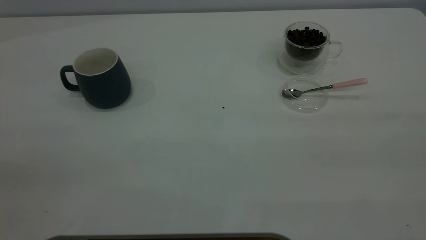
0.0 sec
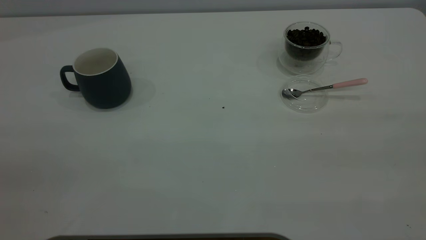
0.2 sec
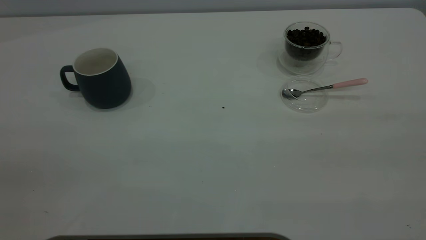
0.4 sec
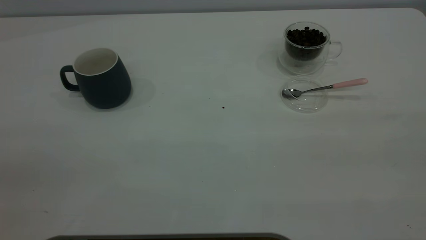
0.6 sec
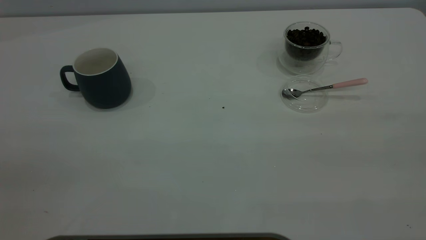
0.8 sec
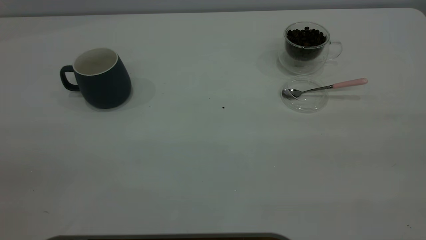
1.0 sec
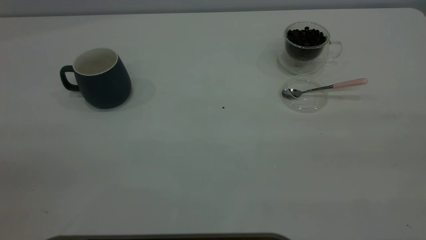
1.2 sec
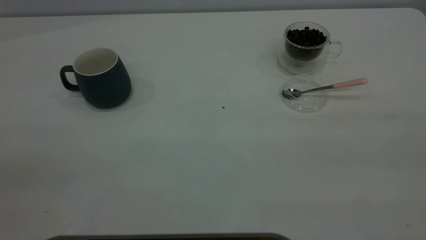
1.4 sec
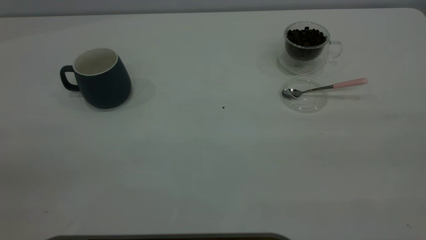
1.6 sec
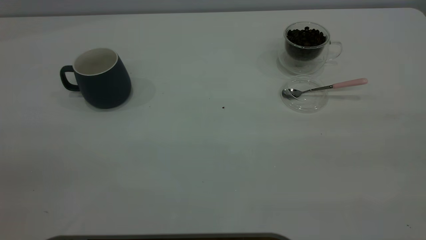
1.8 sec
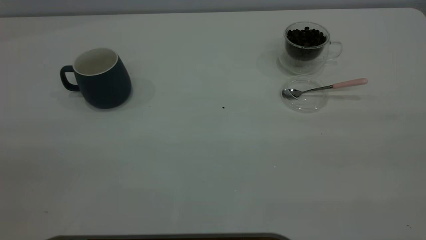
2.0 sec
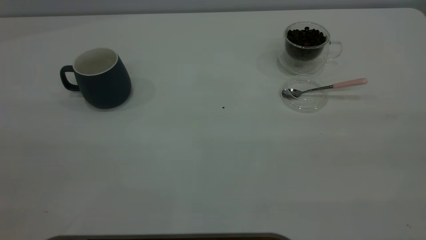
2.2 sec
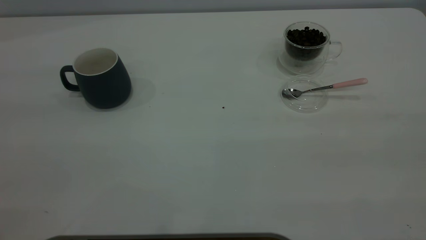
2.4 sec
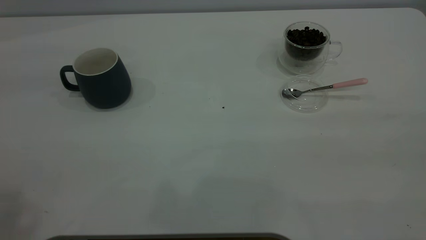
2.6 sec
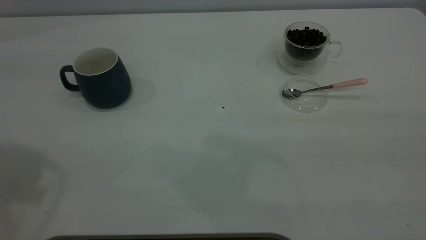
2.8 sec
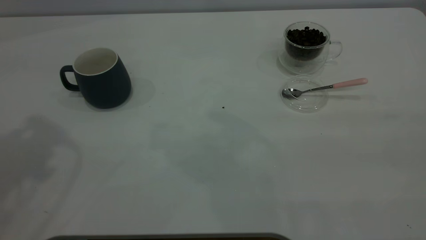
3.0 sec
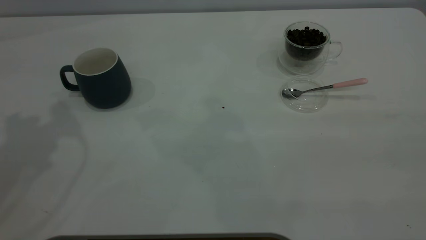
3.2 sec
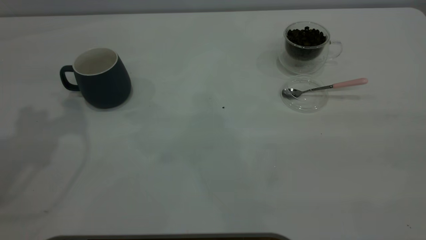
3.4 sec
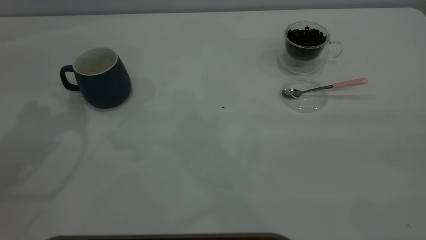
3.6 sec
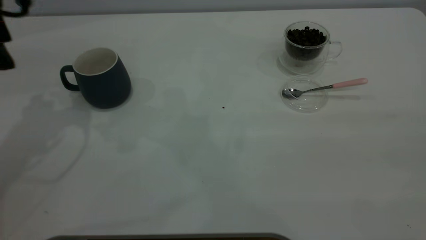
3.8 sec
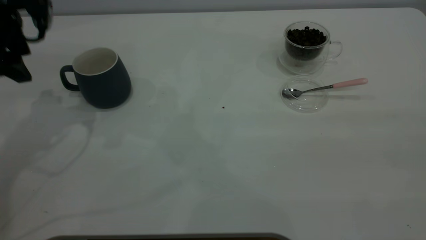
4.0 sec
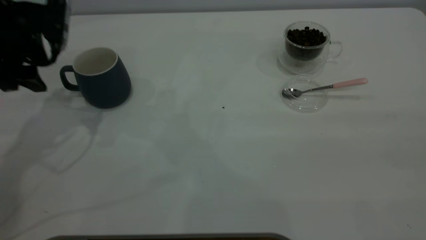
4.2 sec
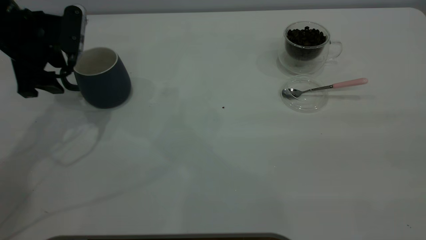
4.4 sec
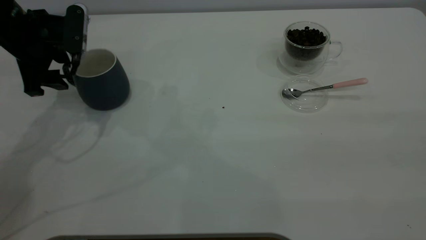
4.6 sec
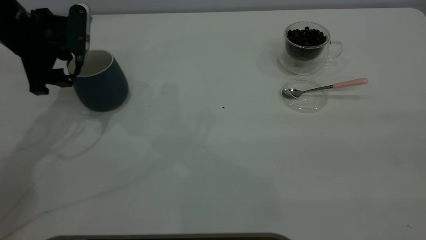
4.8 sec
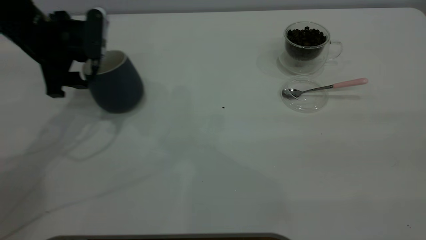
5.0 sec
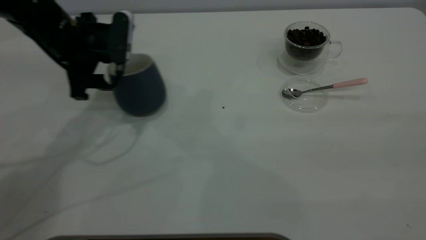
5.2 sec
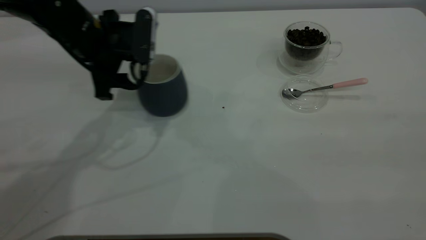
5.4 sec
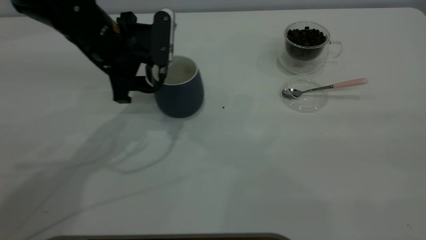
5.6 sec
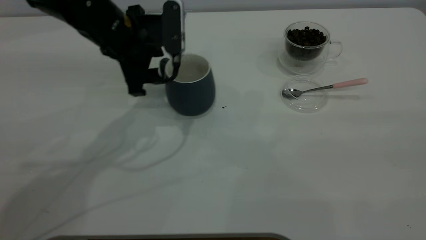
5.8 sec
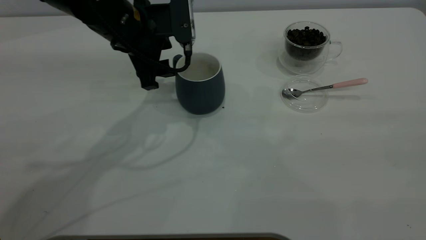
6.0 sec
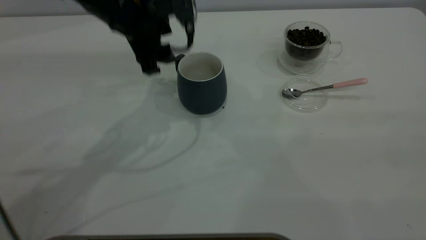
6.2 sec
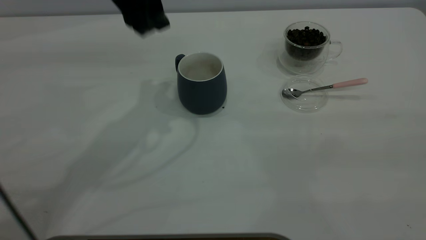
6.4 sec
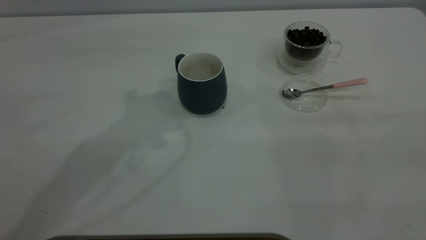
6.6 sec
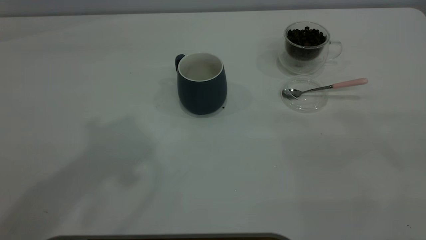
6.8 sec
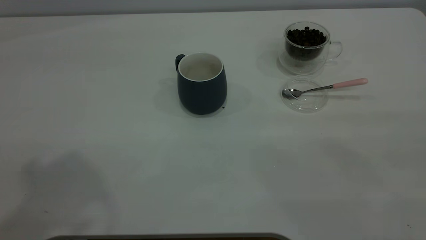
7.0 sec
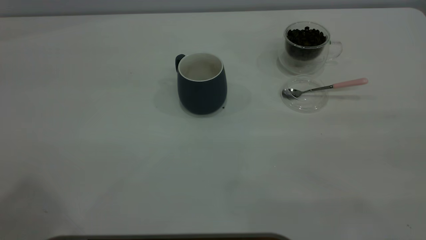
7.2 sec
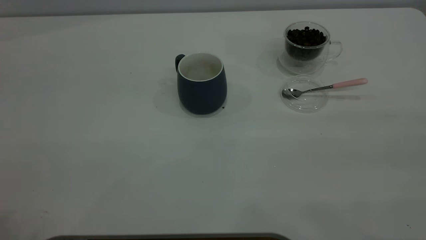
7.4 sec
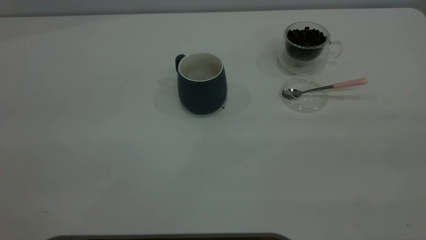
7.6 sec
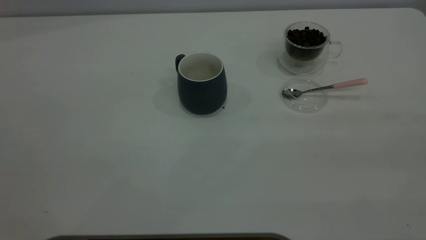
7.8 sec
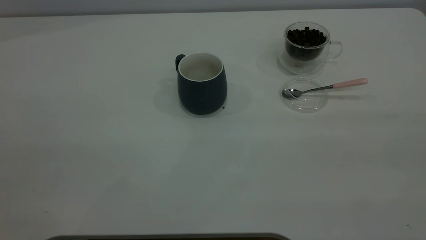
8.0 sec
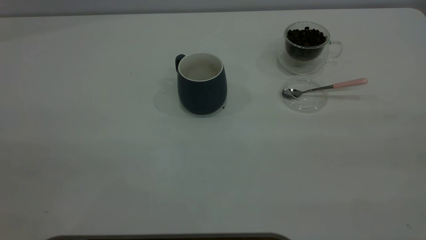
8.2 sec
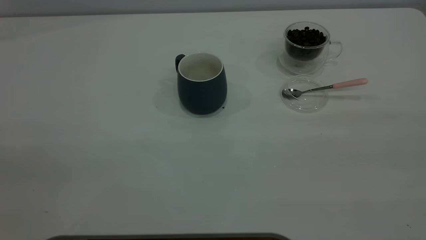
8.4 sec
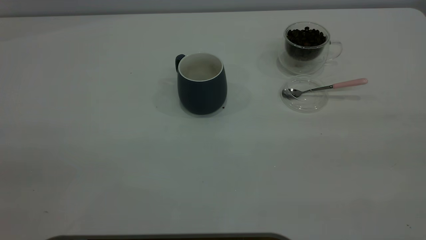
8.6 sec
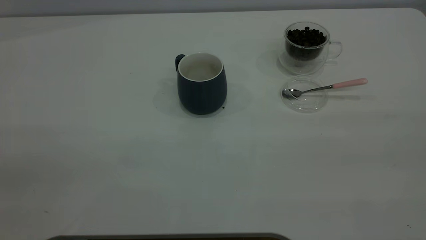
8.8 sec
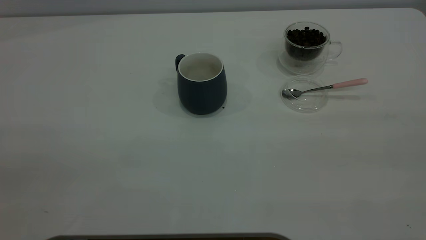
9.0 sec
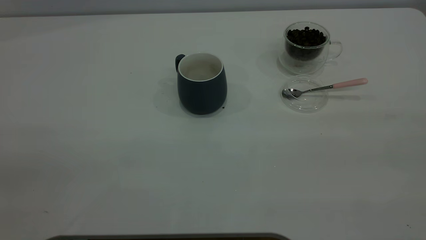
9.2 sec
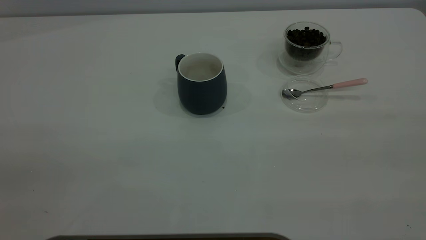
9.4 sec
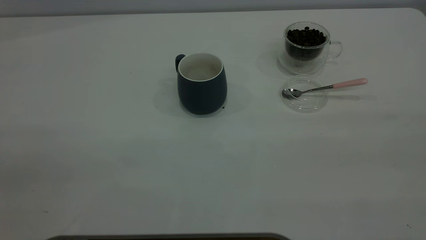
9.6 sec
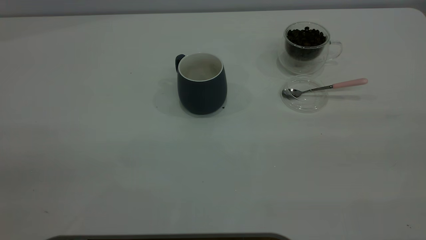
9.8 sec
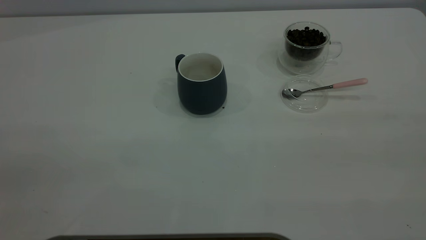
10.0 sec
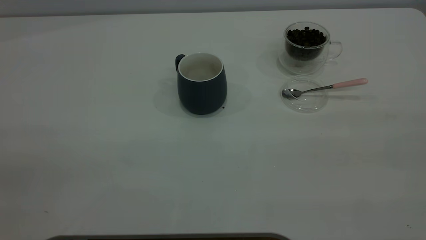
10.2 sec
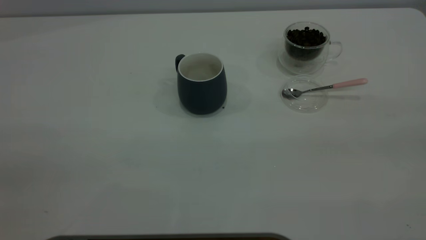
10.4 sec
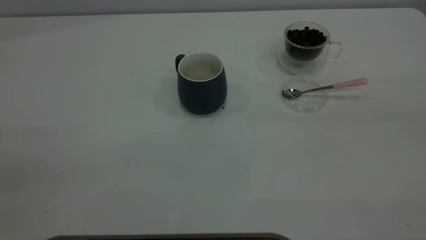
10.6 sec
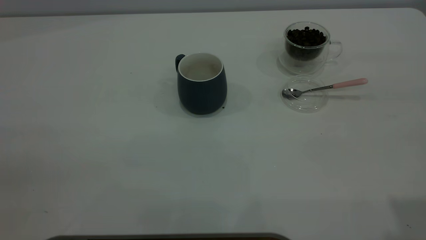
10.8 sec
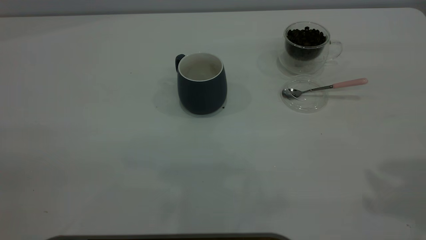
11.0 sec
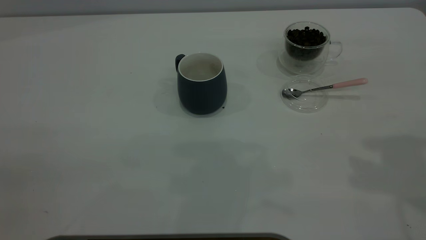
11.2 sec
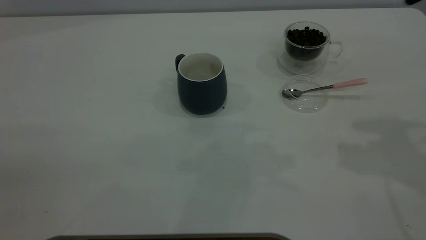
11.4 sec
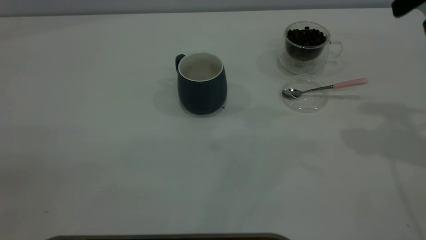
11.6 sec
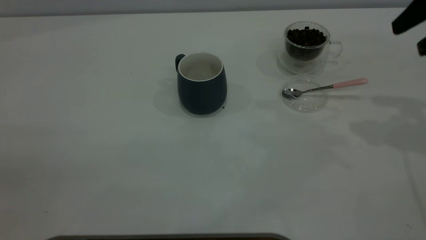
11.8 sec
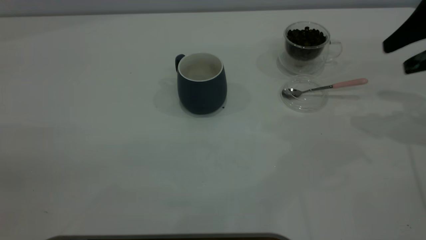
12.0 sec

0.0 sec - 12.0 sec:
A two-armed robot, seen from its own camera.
Task of the whole recording: the left gripper place the grey cup in the center of the table, the right gripper take the pink spoon from the cup lid and scoop out the coffee beans from the coffee cup and put them into the grey cup, the right gripper put the spoon back into the cup lid.
Step, 0.0 sec - 6.0 sec: Move the cup to the center of view.
0.0 sec - 1.6 sec: Neither gripper changes place.
3.0 sec - 4.4 sec: The left gripper travels downward and forward by some 25 cm.
4.4 sec - 6.0 sec: The left gripper shifts about 15 cm to the right.
6.0 sec - 7.6 sec: The left gripper goes some 50 cm upward, backward and to the left.
10.4 sec - 12.0 sec: The right gripper heads forward and downward, covering roughly 35 cm.

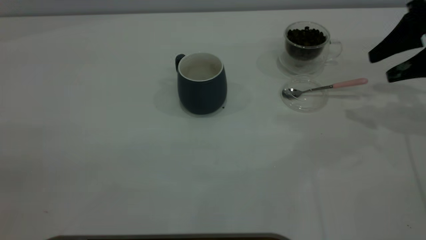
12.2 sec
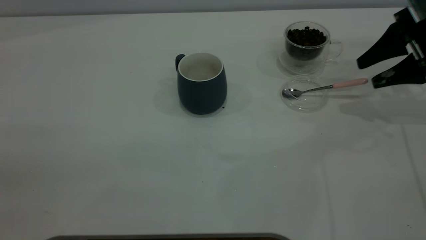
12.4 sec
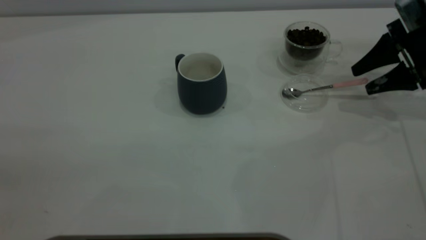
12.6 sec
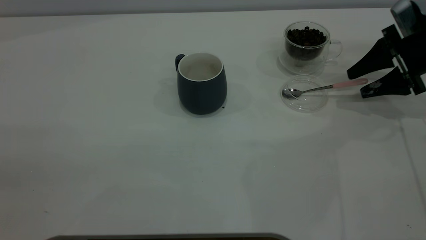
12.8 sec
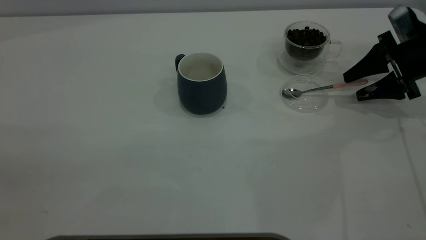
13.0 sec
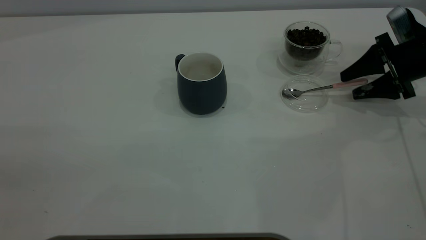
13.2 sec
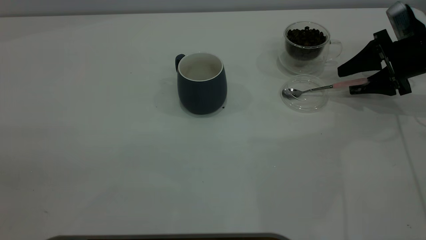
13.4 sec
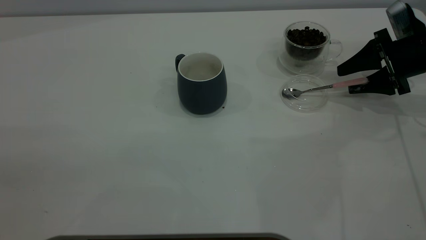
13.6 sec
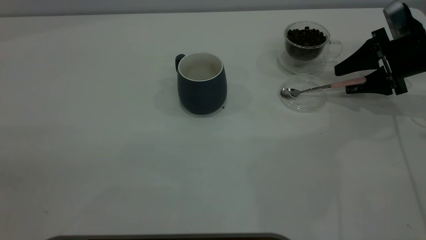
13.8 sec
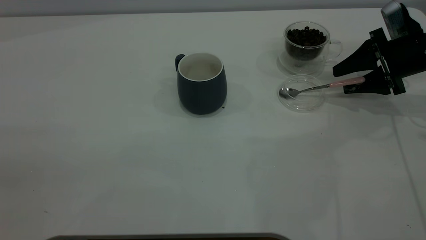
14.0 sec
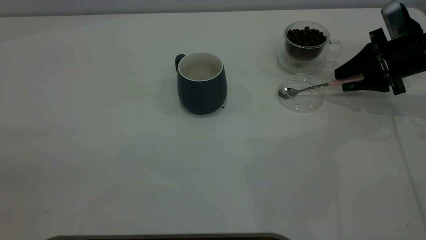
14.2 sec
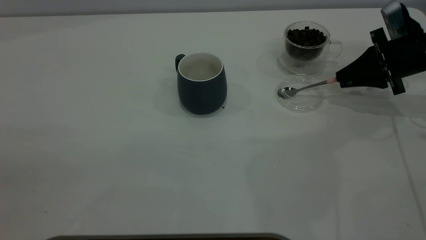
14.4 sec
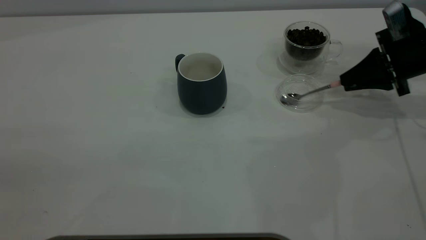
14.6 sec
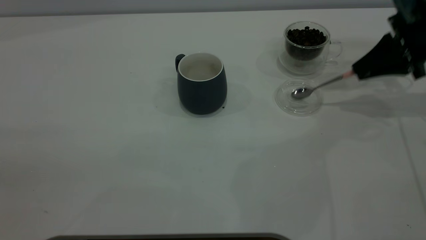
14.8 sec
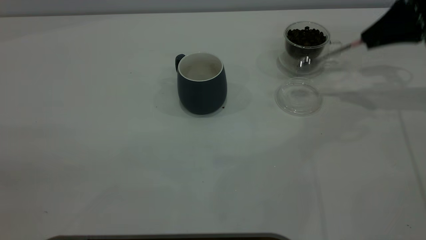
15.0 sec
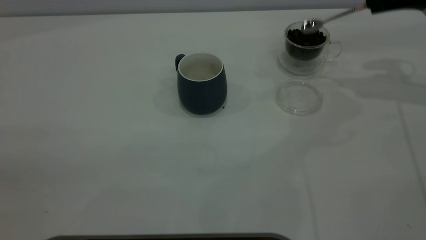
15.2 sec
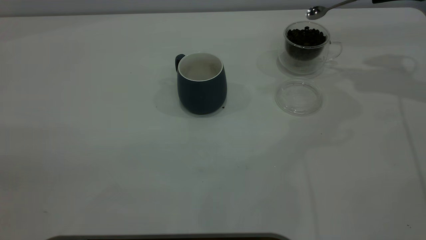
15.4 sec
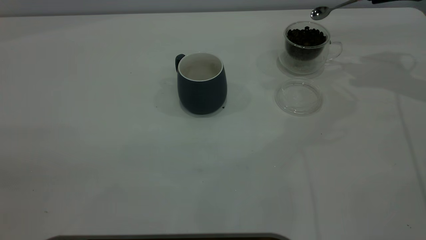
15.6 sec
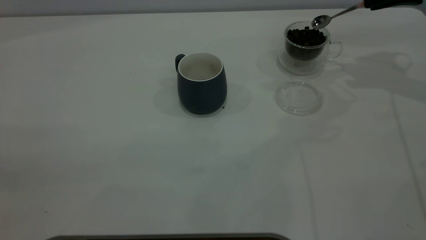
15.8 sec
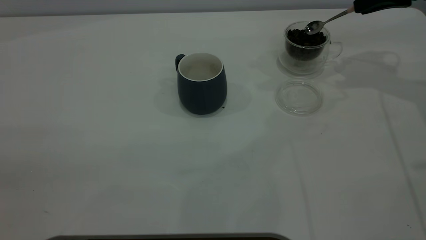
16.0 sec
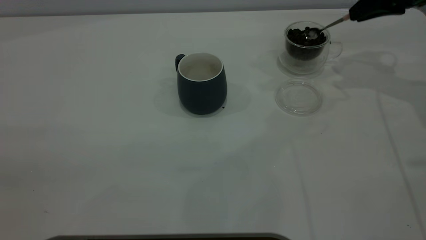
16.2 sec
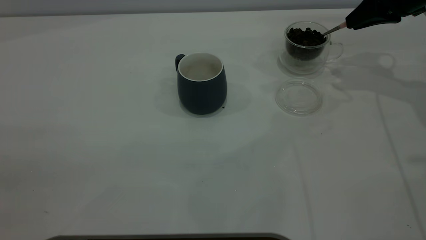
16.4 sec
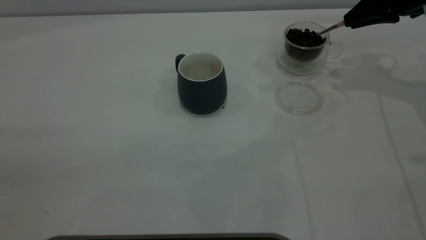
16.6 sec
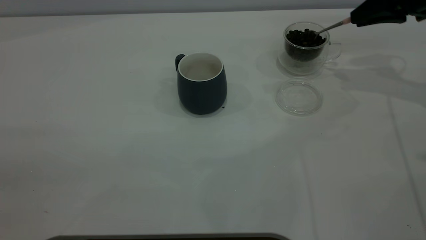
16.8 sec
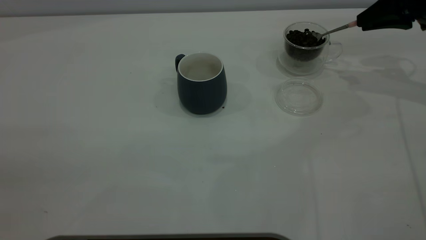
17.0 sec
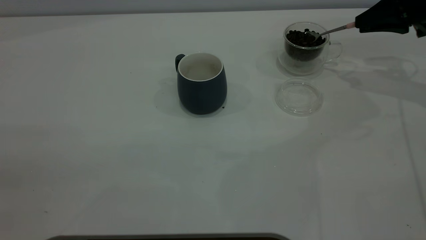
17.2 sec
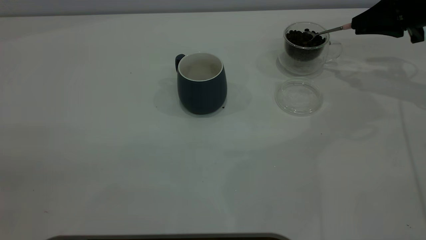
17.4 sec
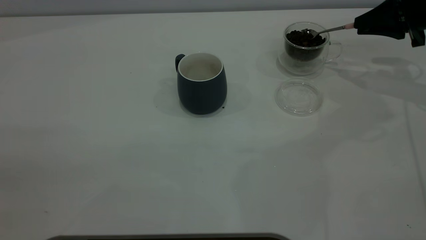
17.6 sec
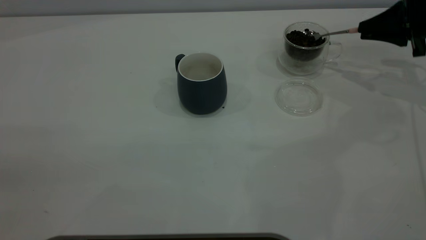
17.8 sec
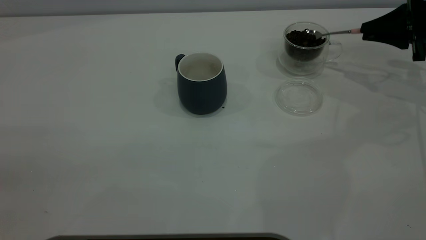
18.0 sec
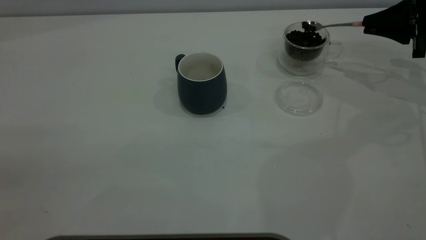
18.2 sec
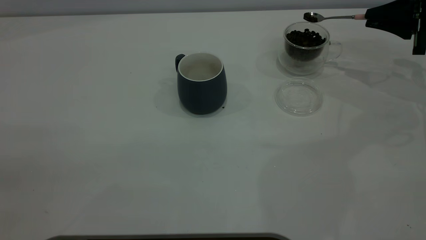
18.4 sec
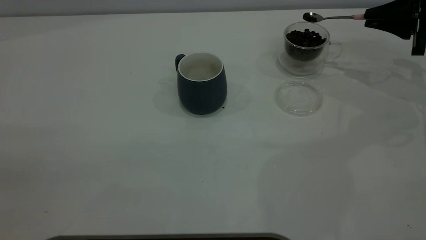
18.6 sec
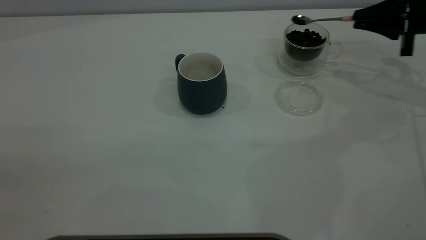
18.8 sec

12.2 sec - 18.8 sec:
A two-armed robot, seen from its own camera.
Task of the whole recording: the left gripper place the grey cup in the center of the table, the right gripper take the pink spoon from the cup lid and scoop out the coffee beans from the coffee cup and put them into the grey cup, the right gripper put the spoon back into the cup lid.
Step, 12.2 sec - 14.8 sec: Pick up the spoon.
12.2 sec - 13.8 sec: The right gripper heads downward, covering some 10 cm.
13.8 sec - 15.4 sec: The right gripper goes about 15 cm upward, and closes up.
15.4 sec - 17.2 sec: The right gripper moves downward, approximately 5 cm.
